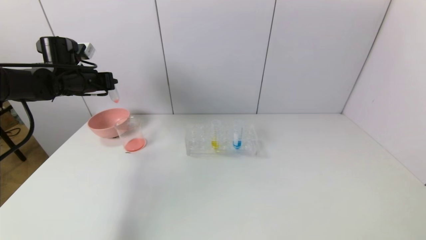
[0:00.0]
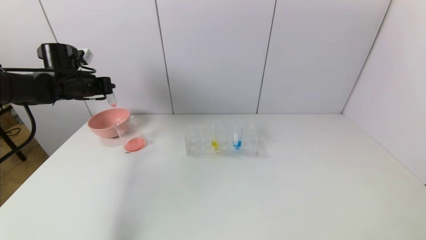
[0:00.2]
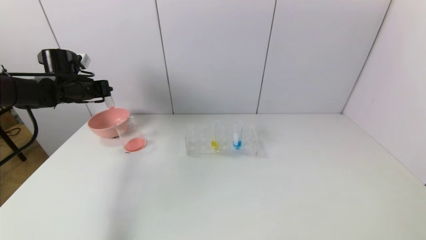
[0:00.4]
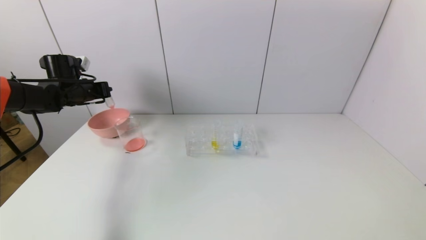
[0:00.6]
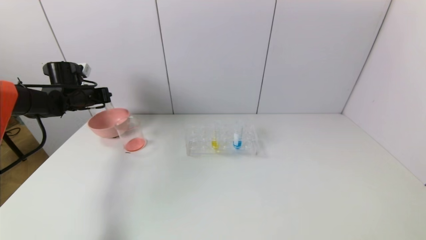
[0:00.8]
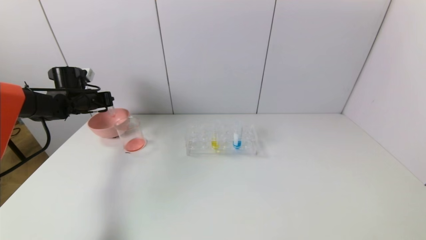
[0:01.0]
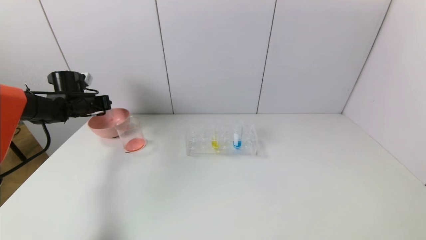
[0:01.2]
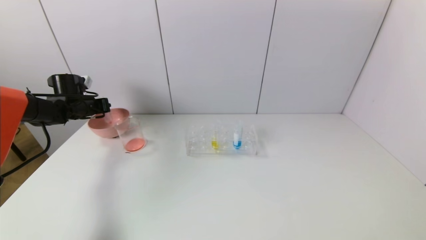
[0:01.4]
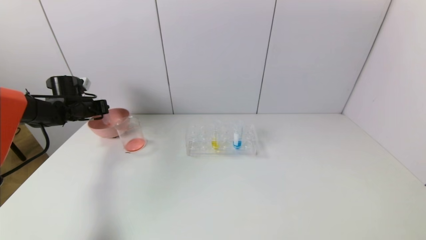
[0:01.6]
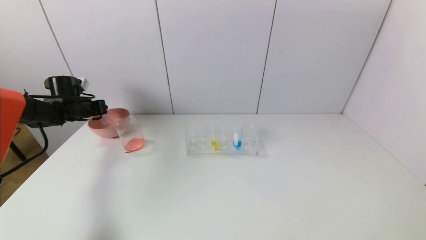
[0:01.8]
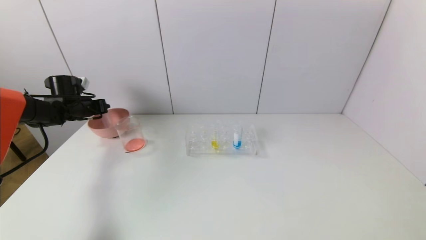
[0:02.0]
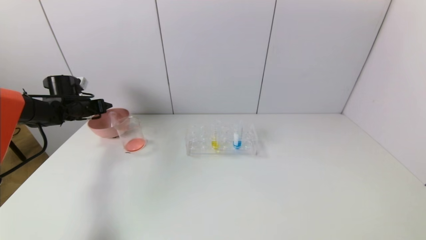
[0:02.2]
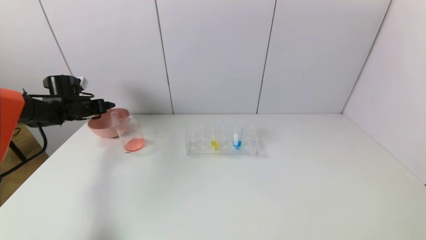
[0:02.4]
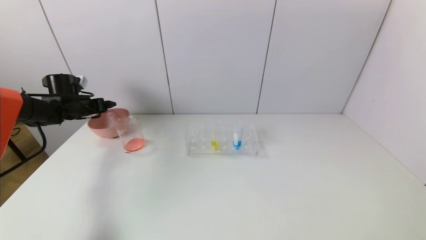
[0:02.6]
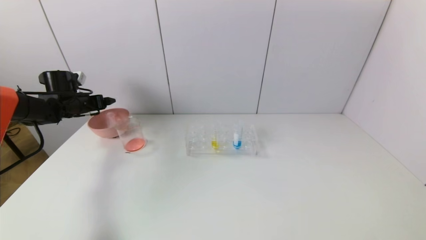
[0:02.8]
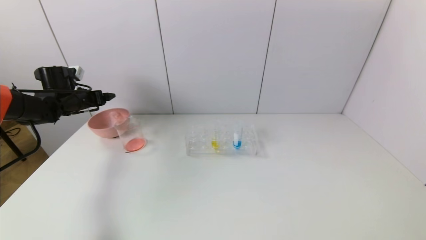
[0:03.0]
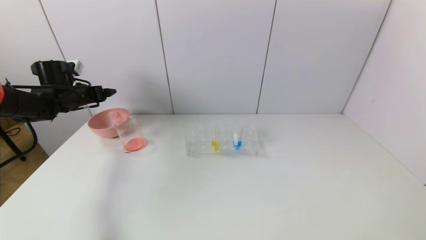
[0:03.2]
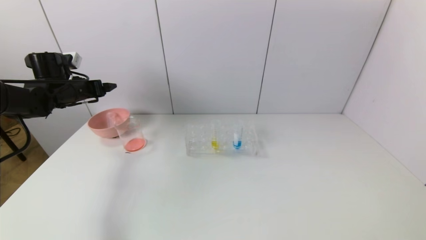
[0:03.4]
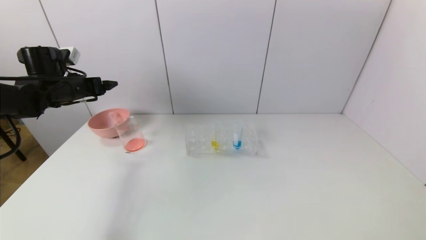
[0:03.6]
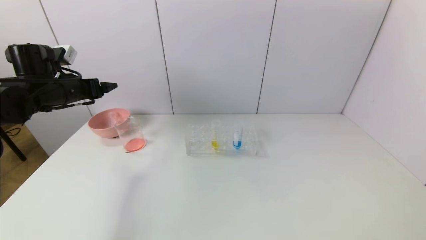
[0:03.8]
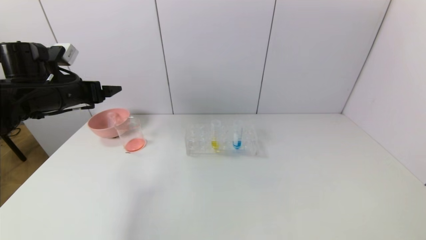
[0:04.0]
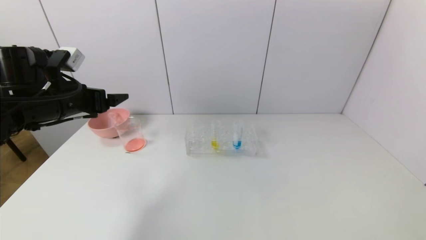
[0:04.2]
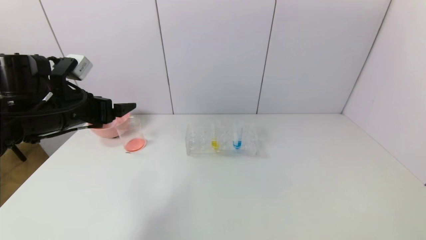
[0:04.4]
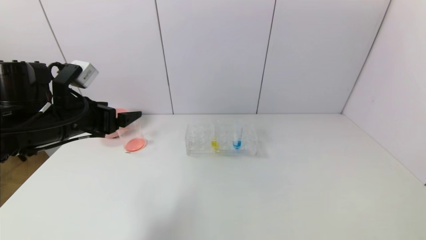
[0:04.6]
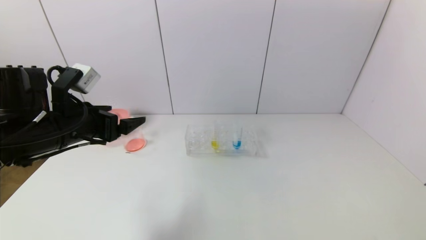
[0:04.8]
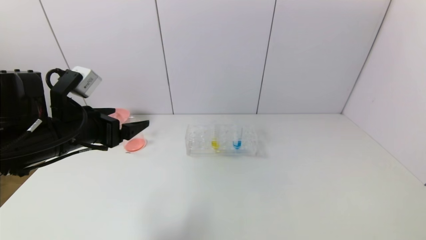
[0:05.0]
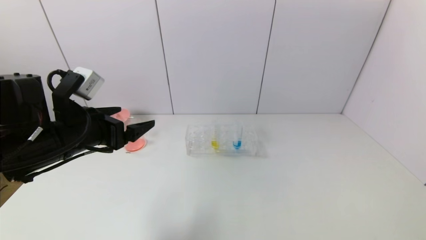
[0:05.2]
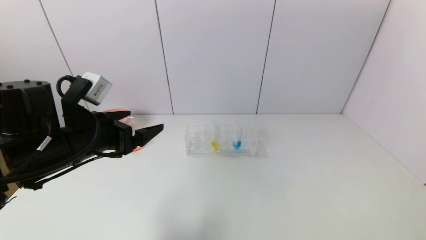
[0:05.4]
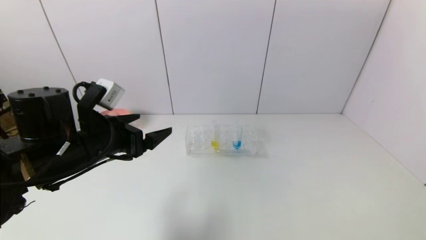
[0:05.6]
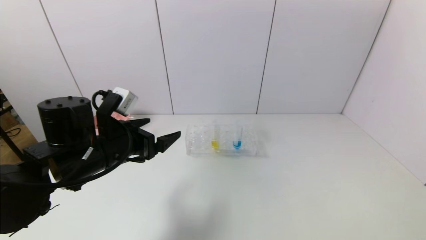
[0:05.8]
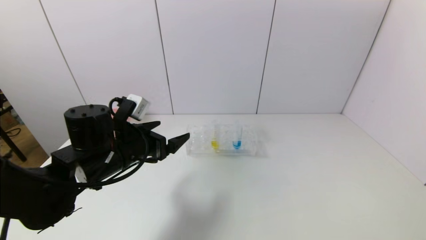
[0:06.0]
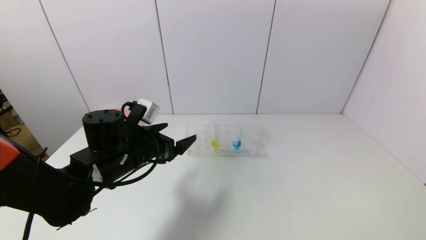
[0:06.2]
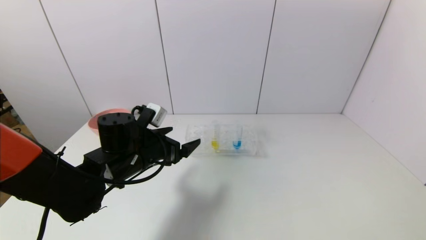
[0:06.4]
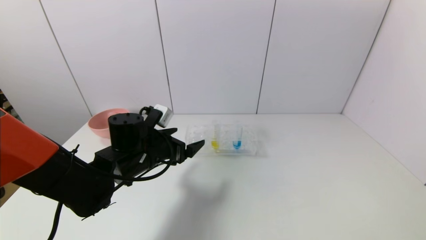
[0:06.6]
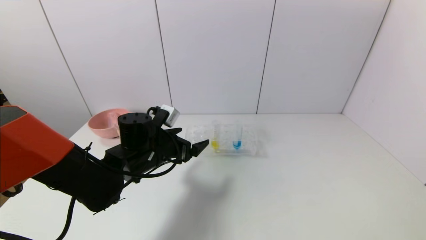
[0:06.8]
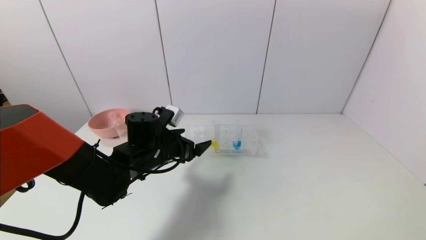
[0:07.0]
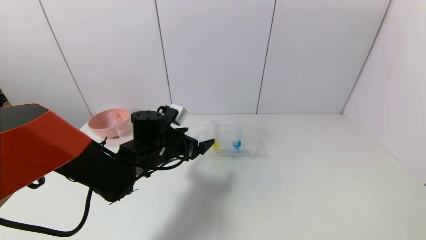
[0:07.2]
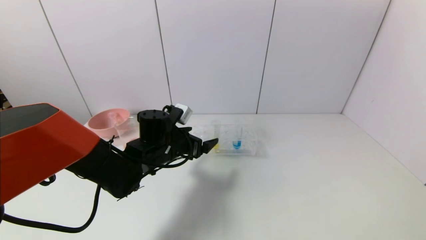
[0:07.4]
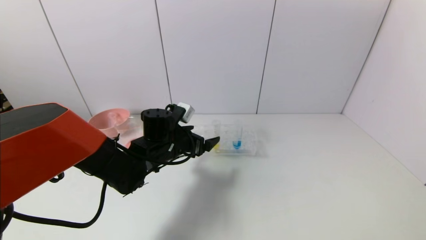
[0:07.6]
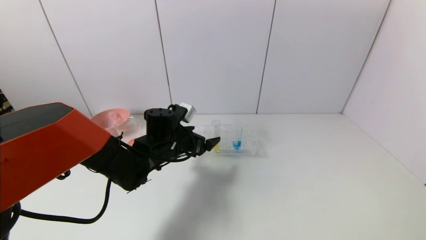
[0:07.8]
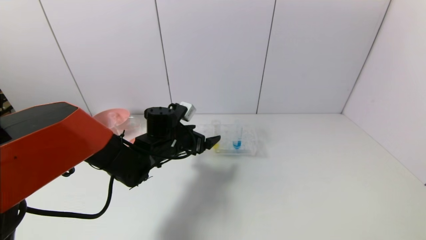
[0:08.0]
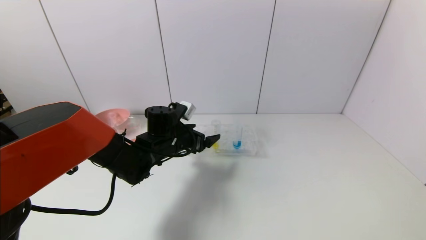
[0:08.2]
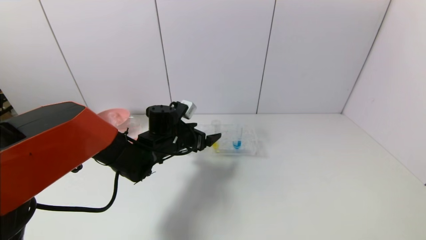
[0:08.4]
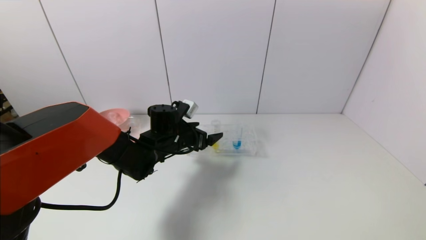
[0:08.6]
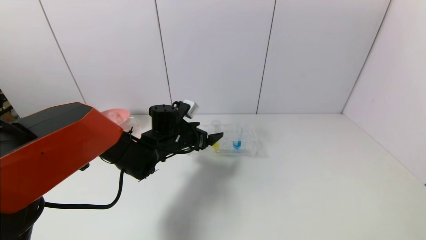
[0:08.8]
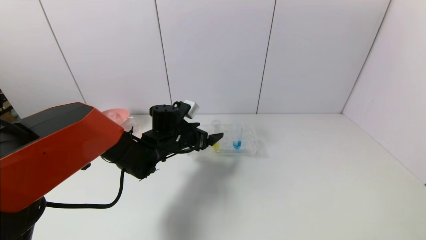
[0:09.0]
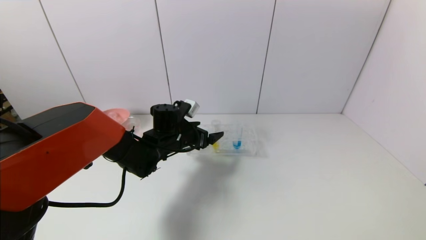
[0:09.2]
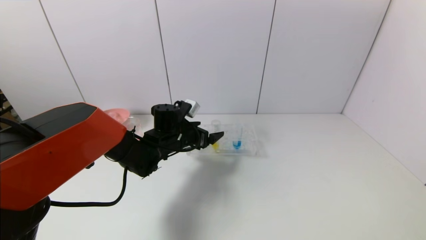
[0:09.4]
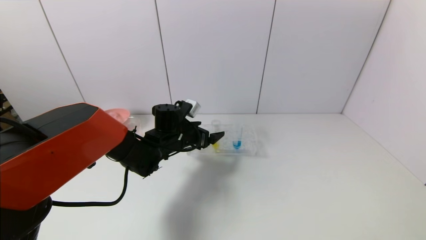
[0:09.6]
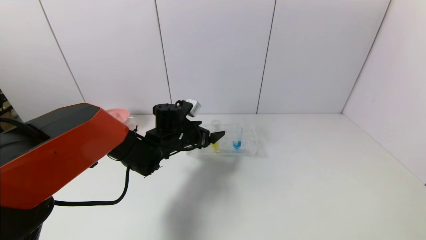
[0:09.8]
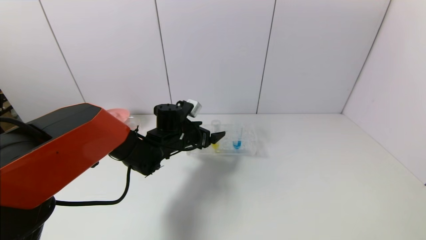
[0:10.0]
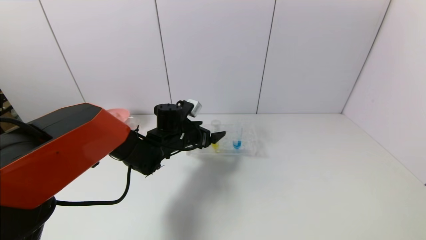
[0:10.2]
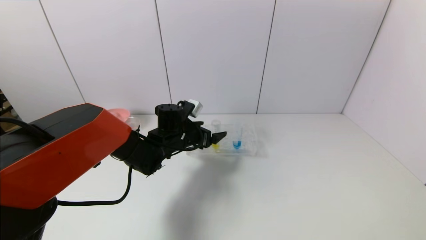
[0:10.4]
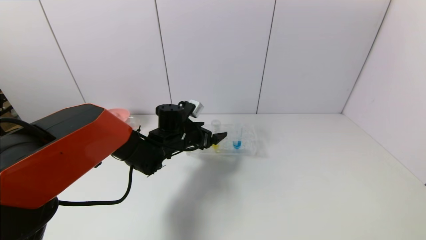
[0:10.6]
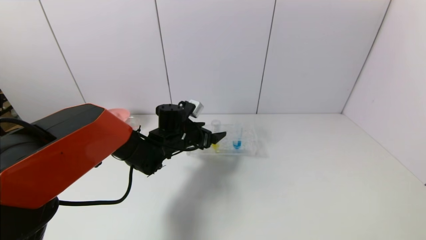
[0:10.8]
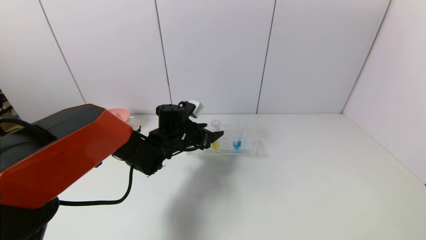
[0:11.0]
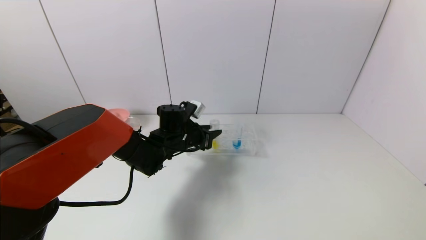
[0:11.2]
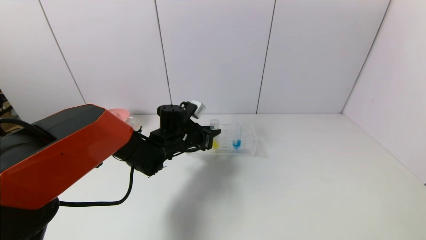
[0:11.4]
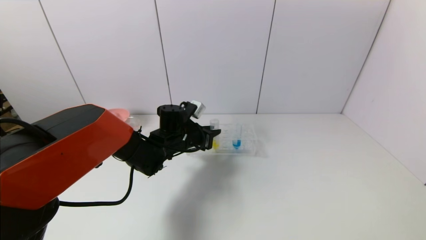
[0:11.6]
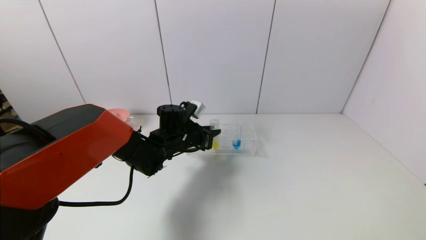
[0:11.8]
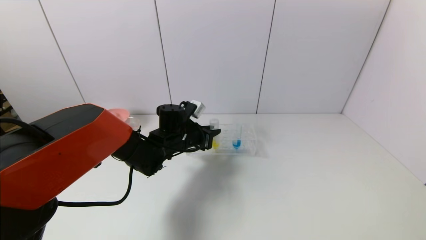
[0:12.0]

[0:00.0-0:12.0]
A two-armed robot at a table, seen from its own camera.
Task of the whole recording: pick up the test tube with yellow pigment and the test tube with red pigment by grippers and pour them into the beaker.
Step, 0:00.0 to 0:02.2: Place the test tube into the pink bowl with the left gripper.
Step, 0:02.4 to 0:11.6: Grasp the yellow reagent with the left gripper.
0:00.0 to 0:01.6: The left gripper moves downward and to the left, roughly 10 cm.
0:01.6 to 0:03.0: The left gripper opens its fingers.
0:03.0 to 0:04.4: The left gripper is displaced backward and to the right by roughly 20 cm.
0:04.4 to 0:06.0: The left gripper moves to the right and downward, about 10 cm.
0:06.0 to 0:07.6: The left gripper travels forward and to the right by roughly 10 cm.
0:07.6 to 0:10.4: The grippers stay close to where they were, moving slightly.
0:10.4 to 0:12.0: The left gripper closes.

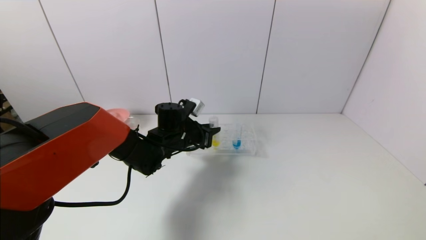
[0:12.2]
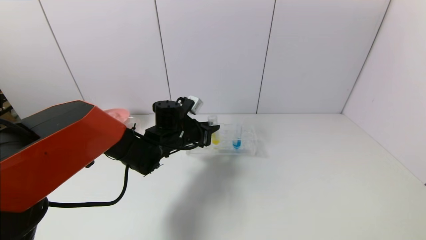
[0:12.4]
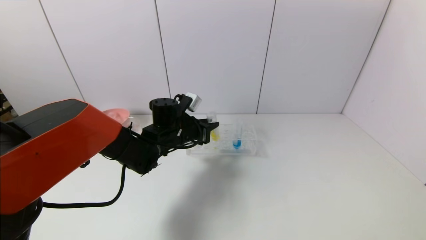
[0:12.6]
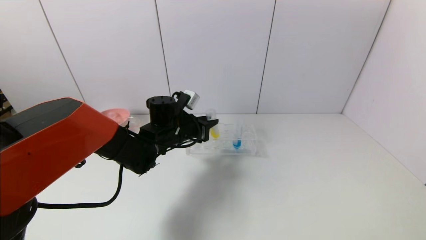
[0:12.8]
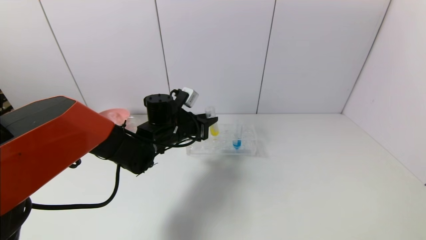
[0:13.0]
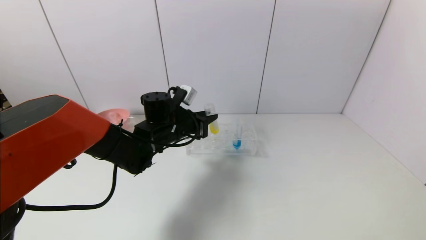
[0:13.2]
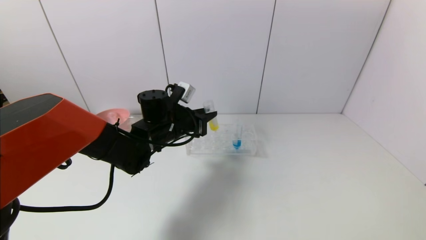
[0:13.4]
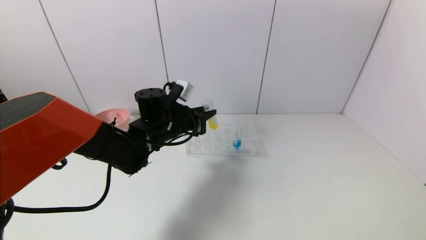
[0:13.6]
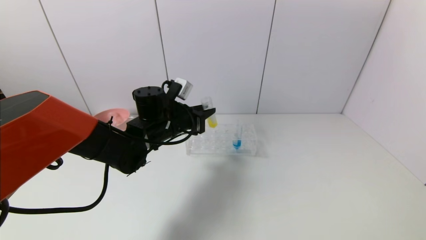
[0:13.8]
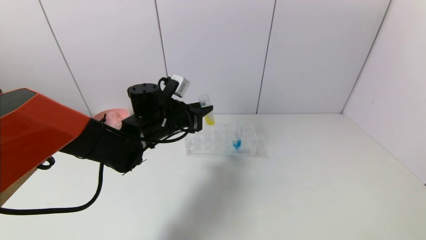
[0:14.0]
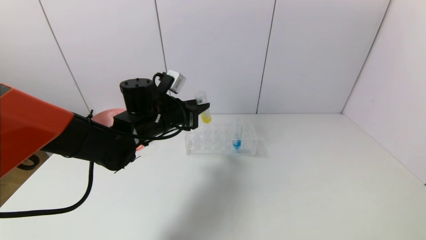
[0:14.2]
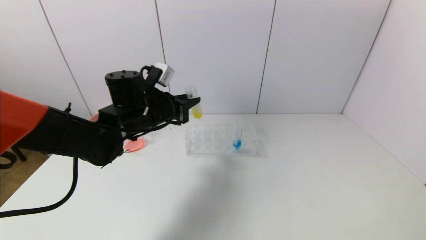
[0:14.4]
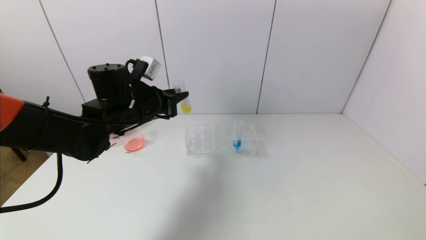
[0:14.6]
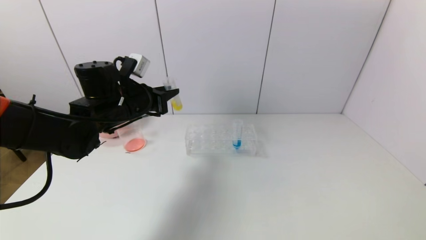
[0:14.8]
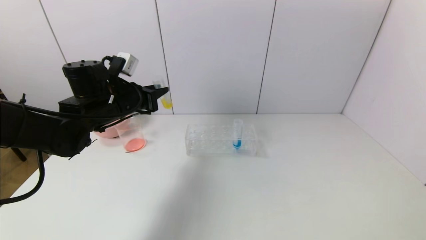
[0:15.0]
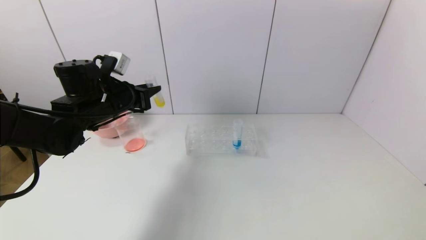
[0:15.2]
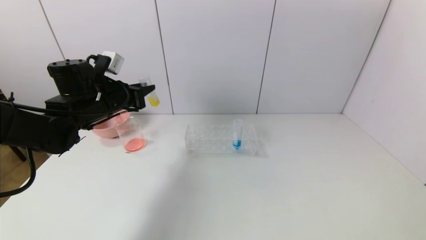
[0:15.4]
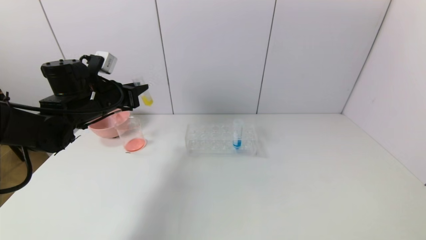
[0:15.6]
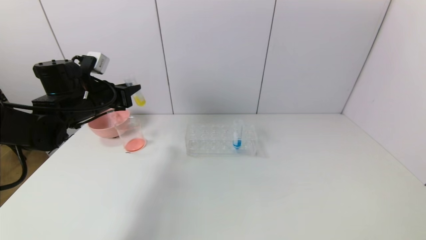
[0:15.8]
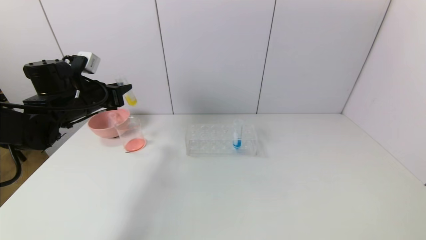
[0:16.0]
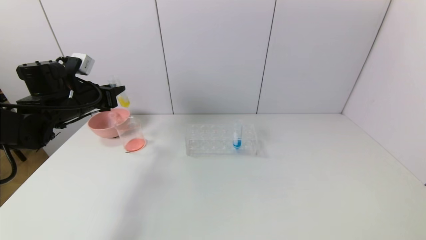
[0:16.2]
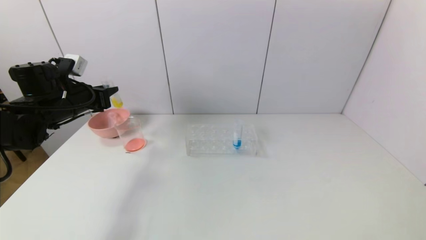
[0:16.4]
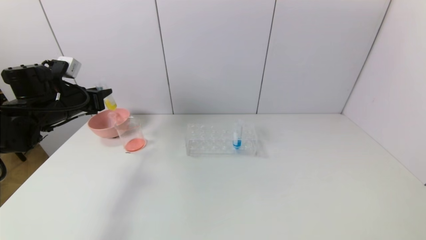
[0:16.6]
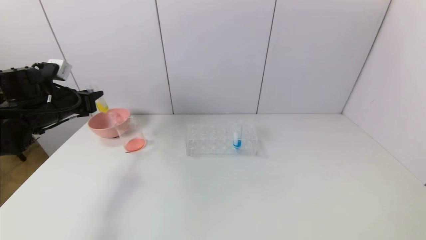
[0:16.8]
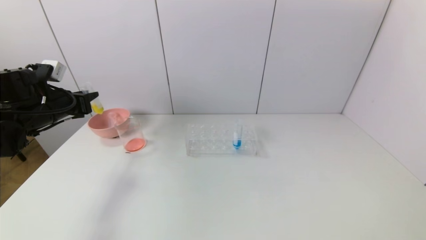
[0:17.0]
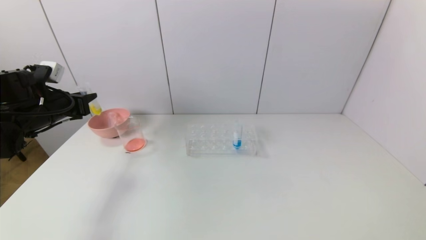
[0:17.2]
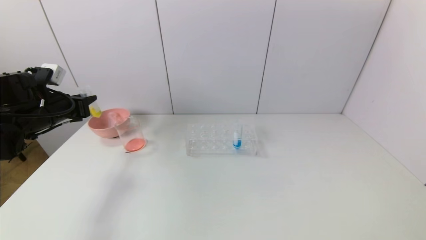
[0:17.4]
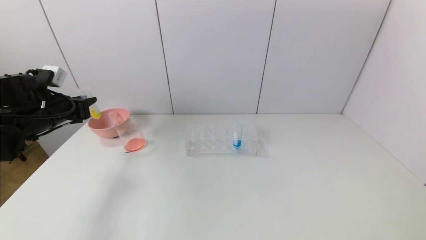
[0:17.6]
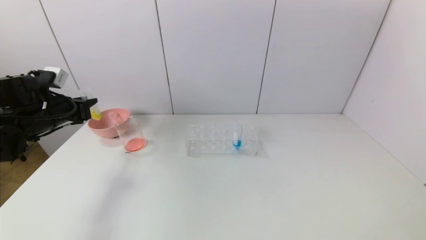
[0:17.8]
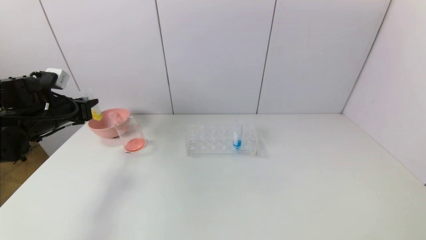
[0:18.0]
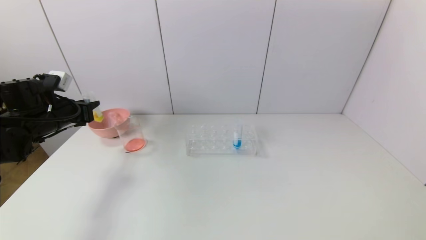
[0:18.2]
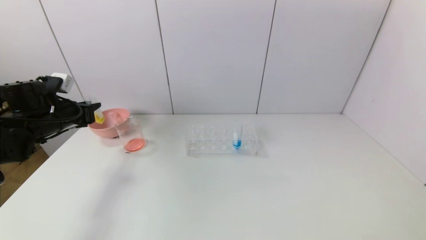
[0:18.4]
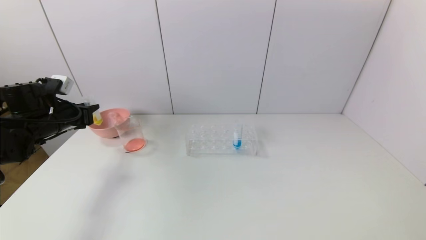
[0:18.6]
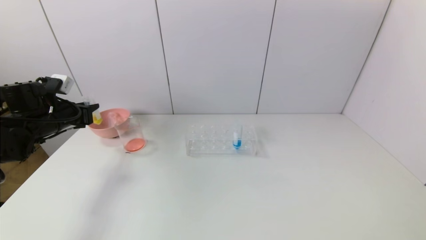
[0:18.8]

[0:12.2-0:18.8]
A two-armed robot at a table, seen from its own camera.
Task of the whole recording: pick up the test tube with yellow pigment and the test tube with red pigment by grippers and pour them into the beaker.
0:12.2 to 0:13.8: The left gripper goes about 5 cm upward.
0:13.8 to 0:15.4: The left gripper goes approximately 15 cm to the left and upward.
0:15.4 to 0:17.2: The left gripper shifts approximately 10 cm to the left.
0:17.2 to 0:18.8: The grippers stay close to where they were, moving slightly.
